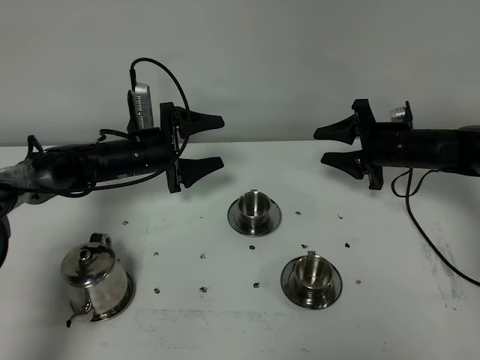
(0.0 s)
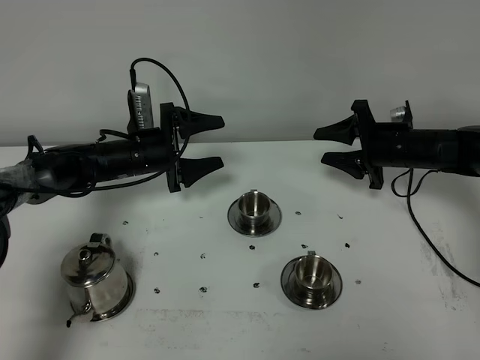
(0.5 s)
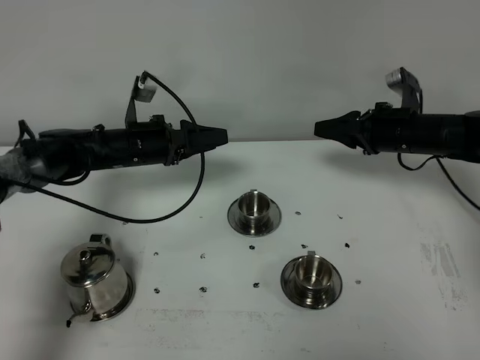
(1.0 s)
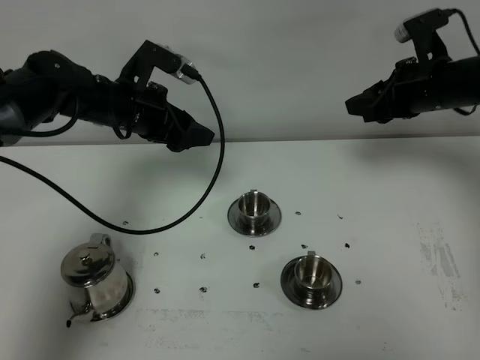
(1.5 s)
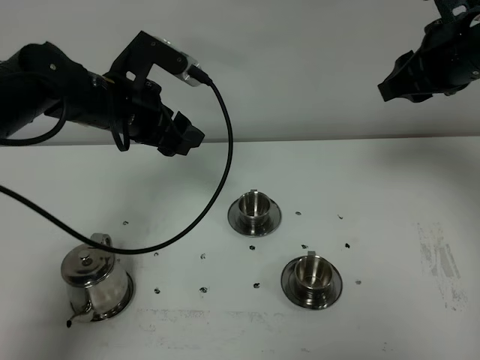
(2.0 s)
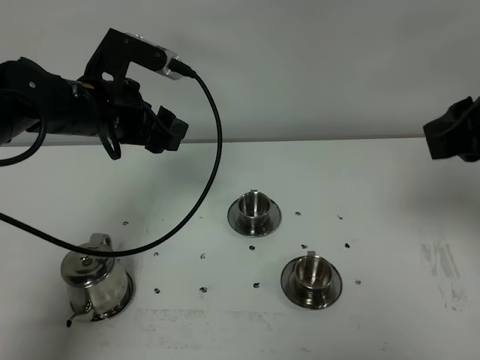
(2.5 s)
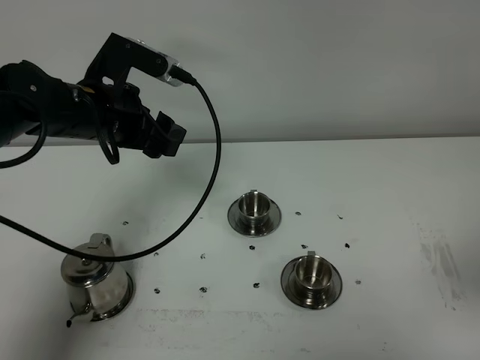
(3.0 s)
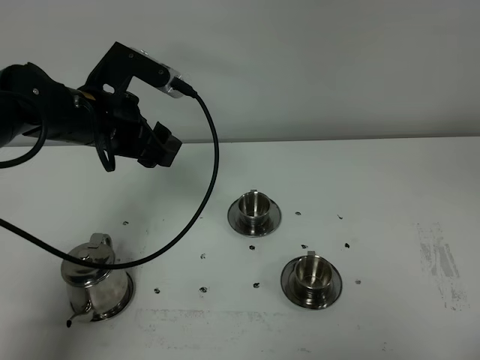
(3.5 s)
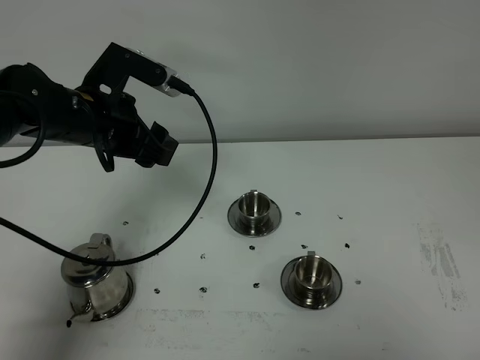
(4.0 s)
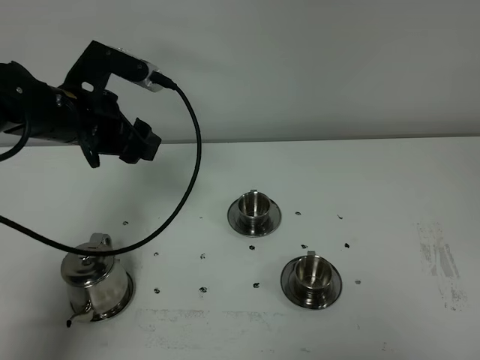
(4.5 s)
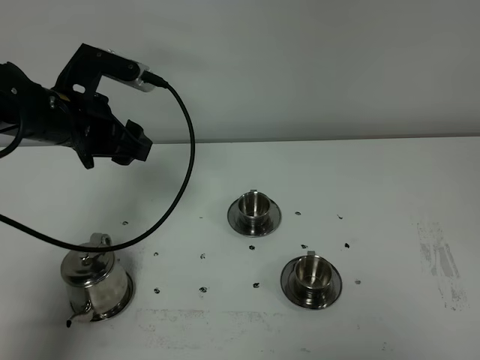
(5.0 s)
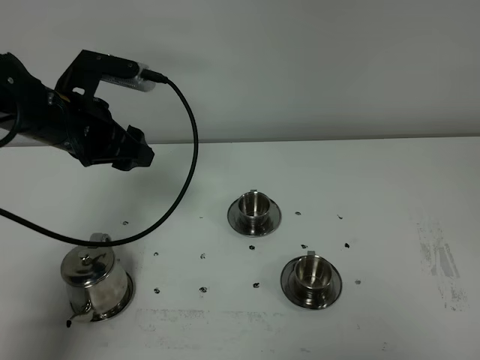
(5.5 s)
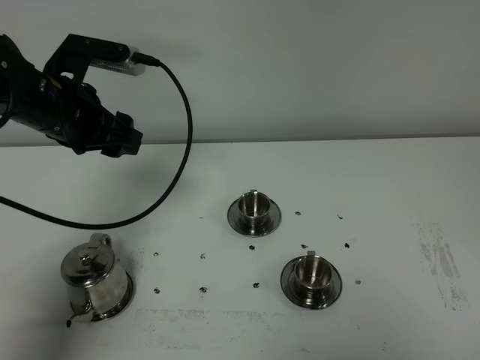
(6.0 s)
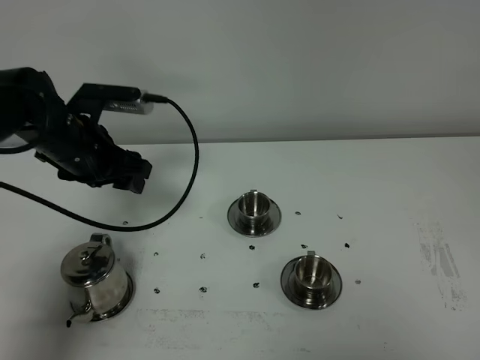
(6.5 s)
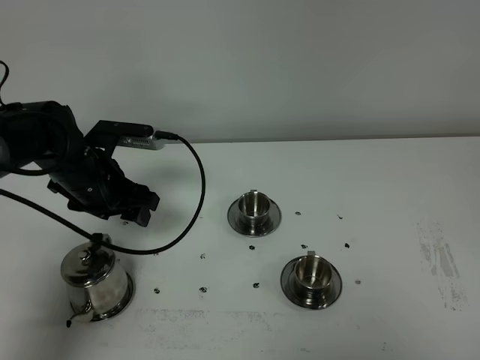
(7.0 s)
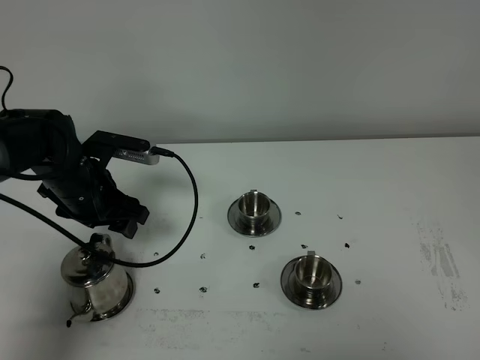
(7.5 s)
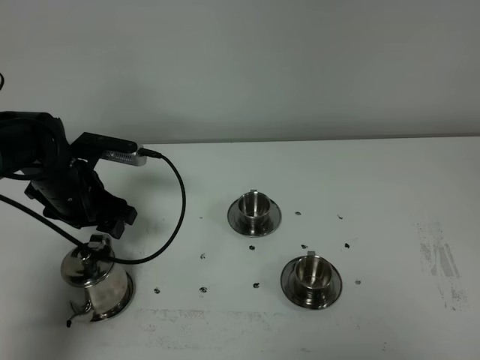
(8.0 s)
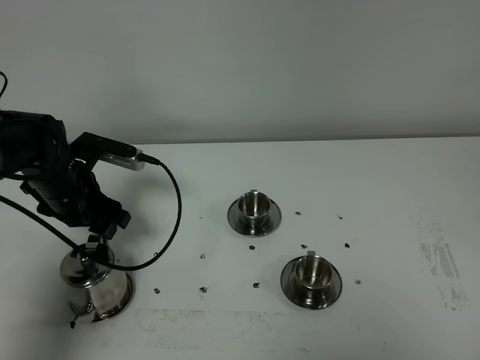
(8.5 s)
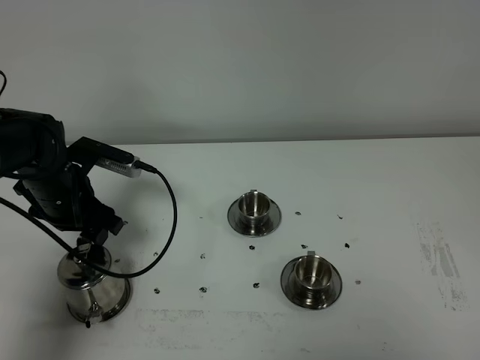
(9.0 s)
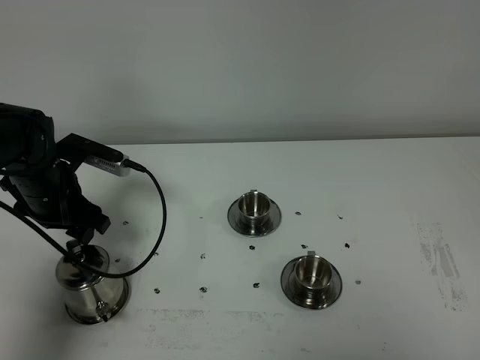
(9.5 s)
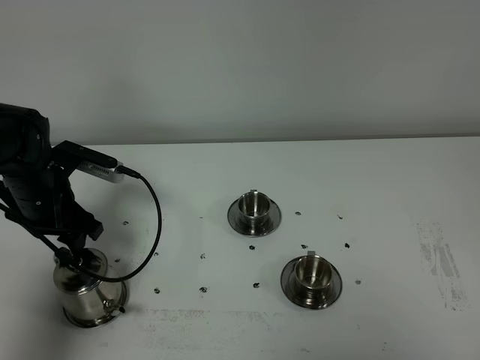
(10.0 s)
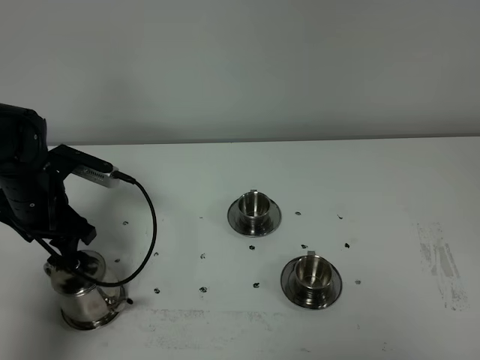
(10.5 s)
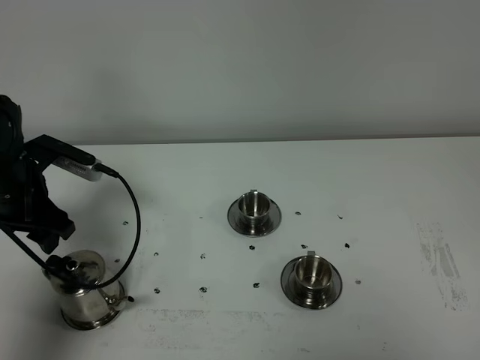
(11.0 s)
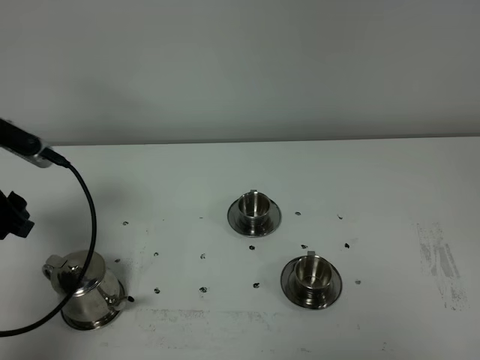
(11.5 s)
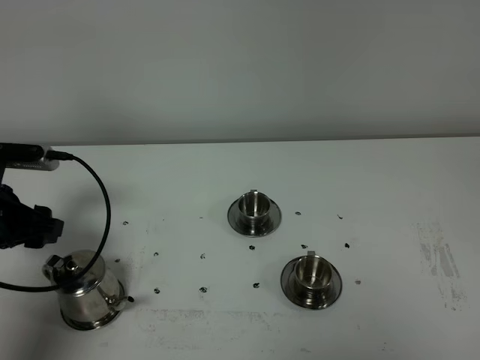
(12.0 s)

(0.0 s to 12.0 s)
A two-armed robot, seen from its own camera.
Task of the whole recording: grasp the stainless steel teapot and pour the tea into the two stainless steel teacups one by one, put the stainless steel teapot back in its original place.
0.0 s - 2.0 s: The two grippers go about 20 cm upward and backward.
2.0 s - 4.0 s: The right gripper travels backward by about 40 cm.
4.0 s - 6.0 s: The right gripper closes.
6.0 s - 8.0 s: The left gripper moves downward, approximately 15 cm.
8.0 s - 10.0 s: The grippers make only small movements.
10.0 s - 12.0 s: The left gripper is displaced backward and to the left by roughly 10 cm.

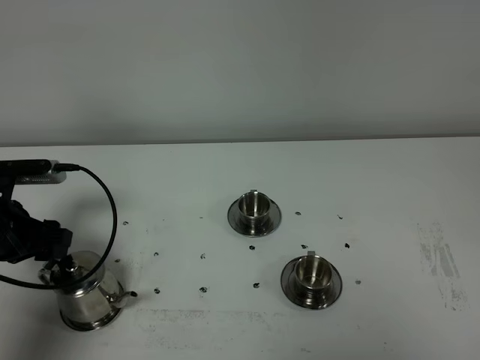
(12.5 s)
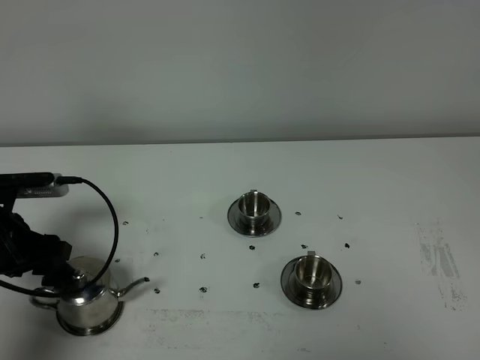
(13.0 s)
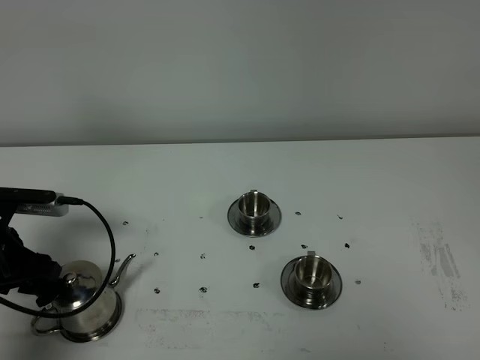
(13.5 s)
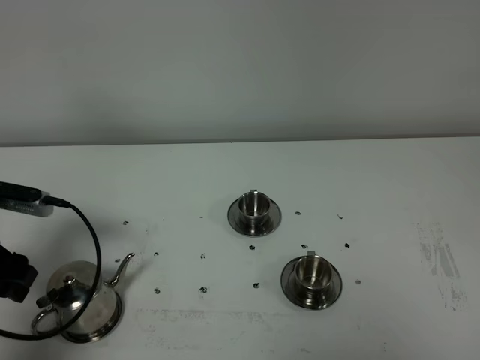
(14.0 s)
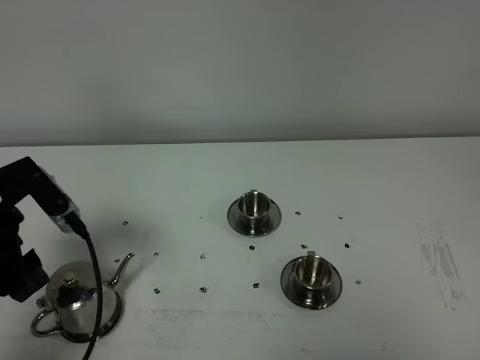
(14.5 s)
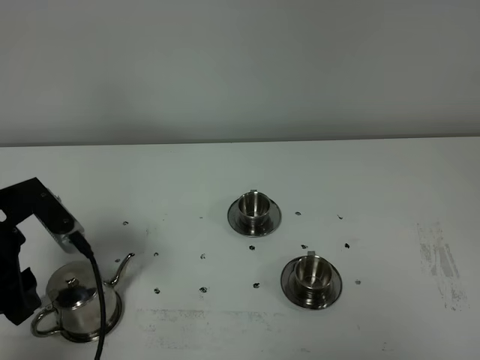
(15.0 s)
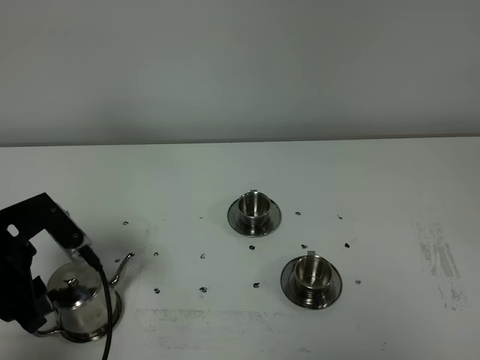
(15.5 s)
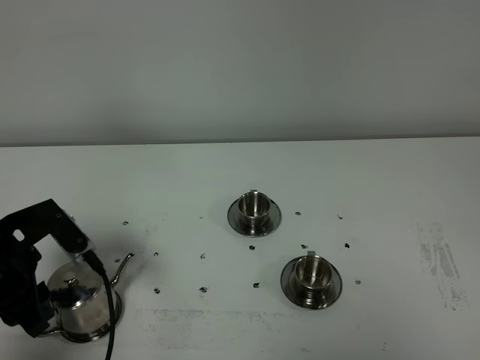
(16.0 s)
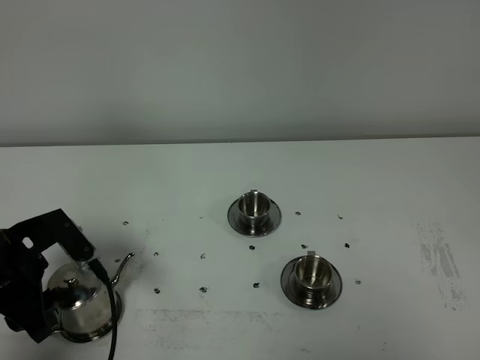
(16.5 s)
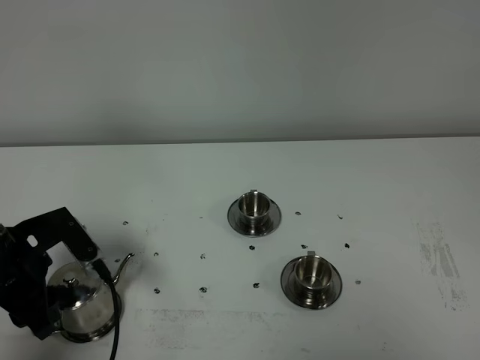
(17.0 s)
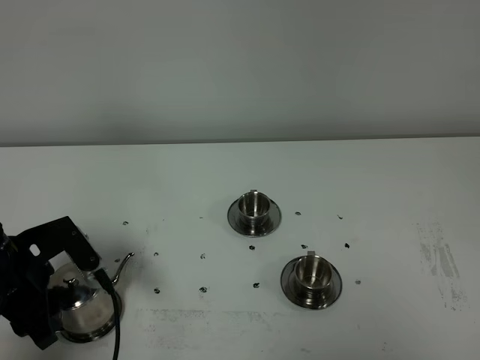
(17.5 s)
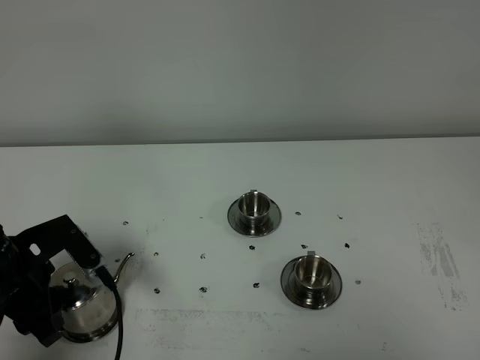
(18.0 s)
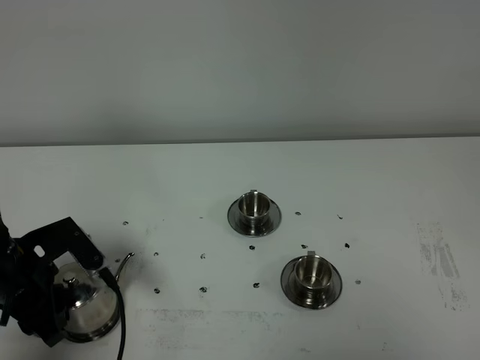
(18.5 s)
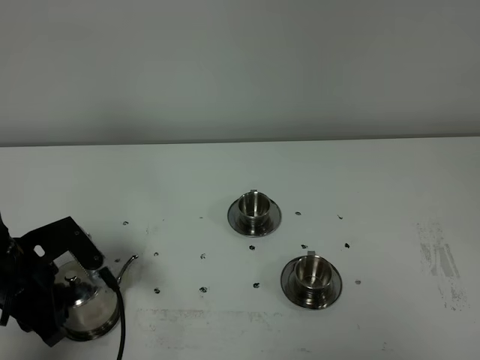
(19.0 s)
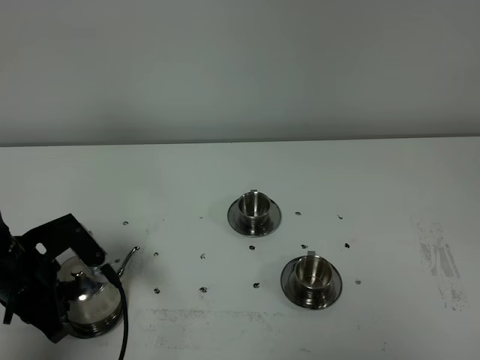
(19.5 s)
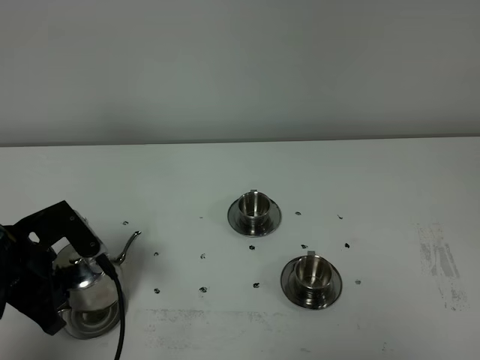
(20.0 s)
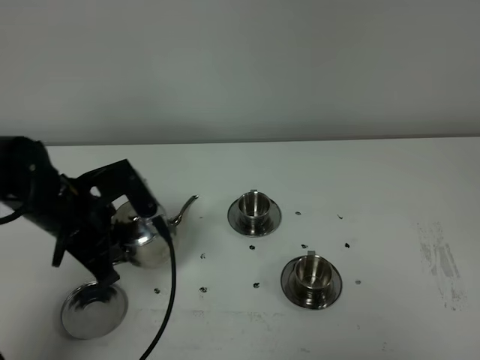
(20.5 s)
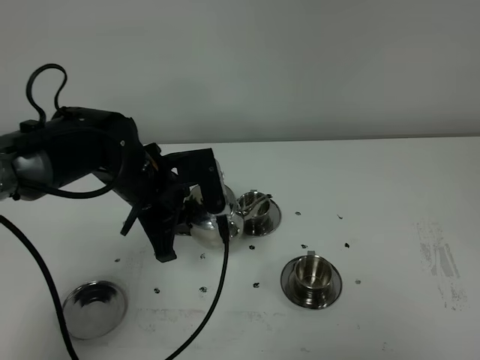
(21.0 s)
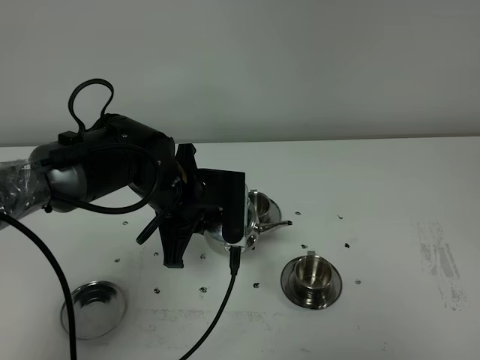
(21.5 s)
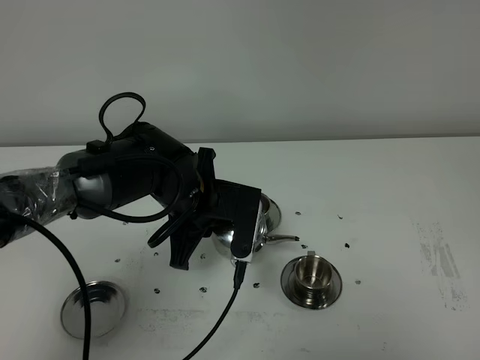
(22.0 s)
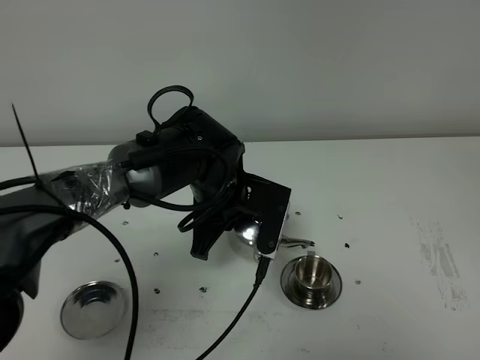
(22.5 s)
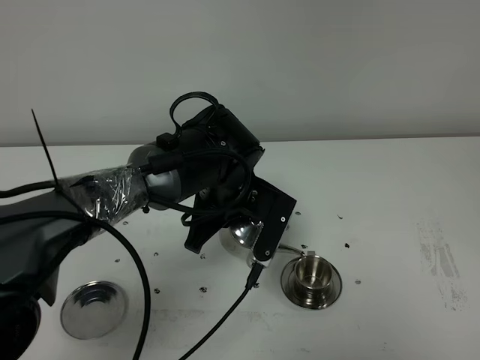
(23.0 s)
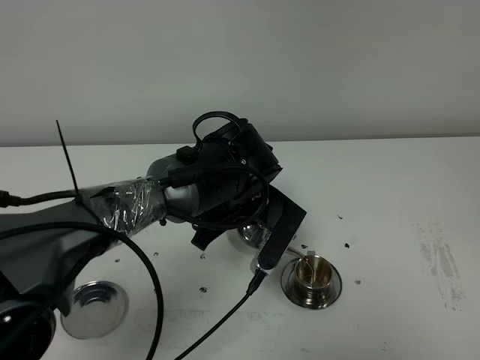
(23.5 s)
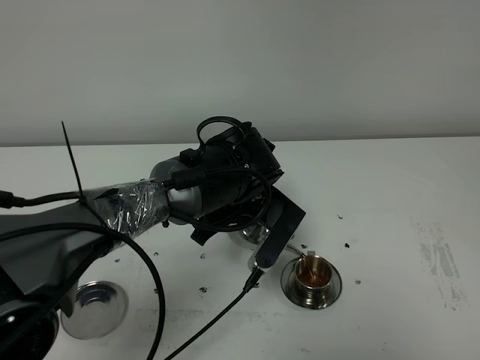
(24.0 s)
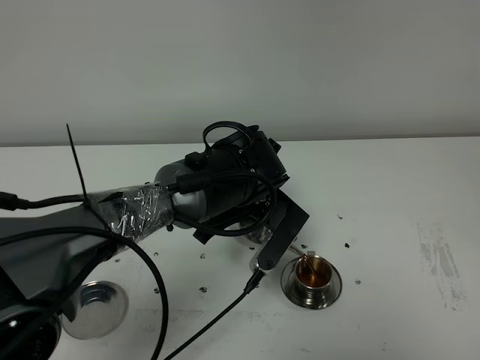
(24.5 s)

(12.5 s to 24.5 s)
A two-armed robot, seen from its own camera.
Task of the whole recording: grasp the stainless steel teapot and pour the tea into the two stainless steel teacups one by one, put the stainless steel teapot back in its original place.
Step, 12.5 s - 19.5 s: Pick up the teapot with the left gripper.
12.5 s - 14.5 s: The left gripper travels upward and backward by about 10 cm.
14.5 s - 16.5 s: The left gripper goes approximately 5 cm downward, and closes its fingers.
16.5 s - 18.5 s: The grippers move only a little.
18.5 s - 20.5 s: The left gripper moves to the right and forward, roughly 10 cm, and closes.
20.5 s - 22.5 s: The left gripper is displaced to the right by some 15 cm.

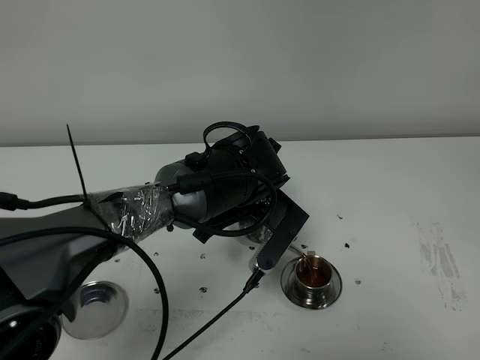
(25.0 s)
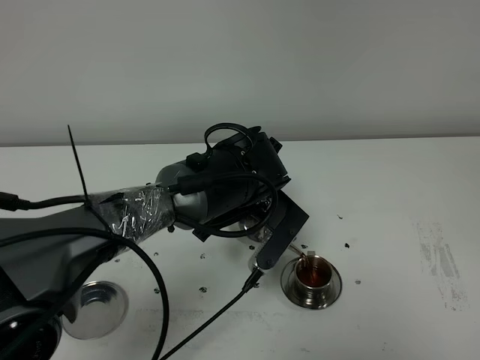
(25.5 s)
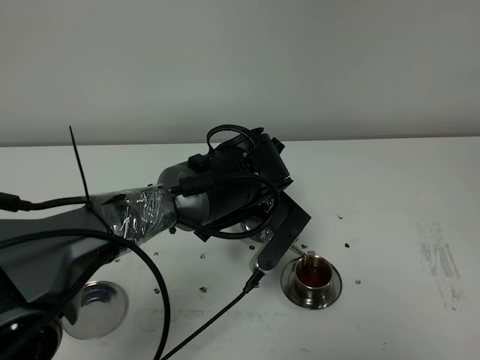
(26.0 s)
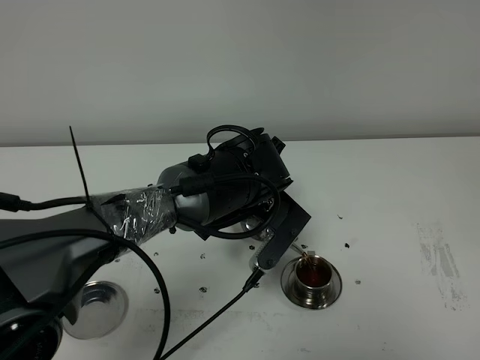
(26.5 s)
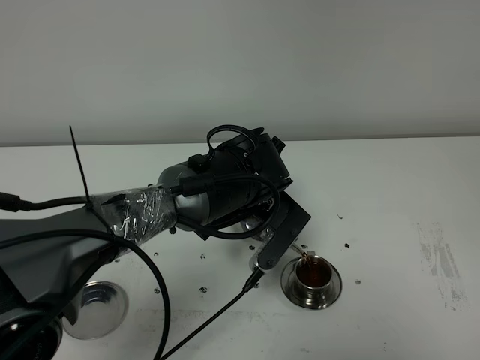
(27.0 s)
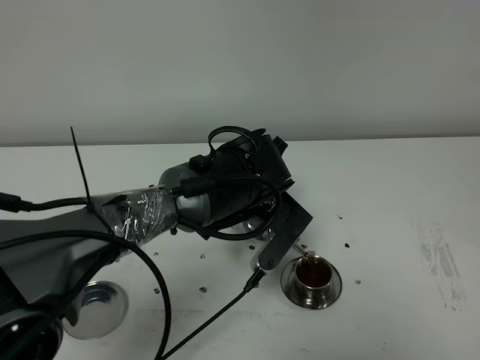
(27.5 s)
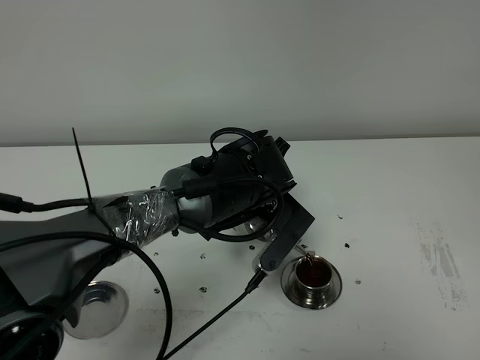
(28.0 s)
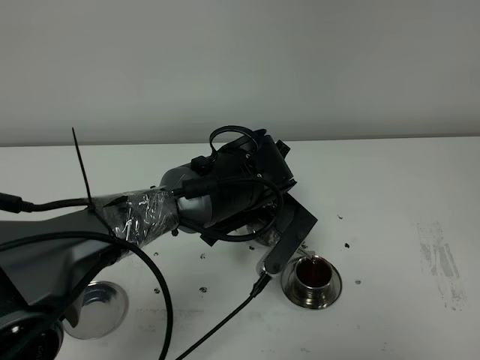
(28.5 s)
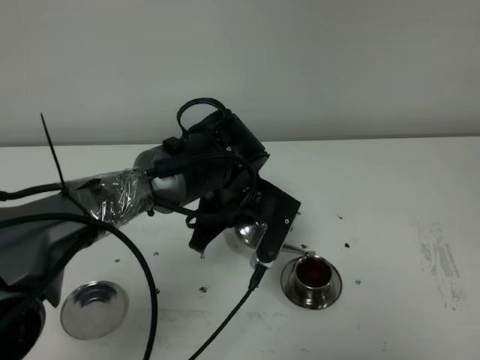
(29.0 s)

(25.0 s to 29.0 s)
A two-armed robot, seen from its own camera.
Task of the whole recording: grasp the stainless steel teapot and pour the tea into the two stainless steel teacups one by one, put the stainless steel teapot back in its original place.
Step, 25.0 s - 29.0 s: Pour tea into the teacup with the left gripper.
25.0 s - 27.0 s: The two grippers keep their place.
27.0 s - 29.0 s: There are only small adjustments of the grippers.
